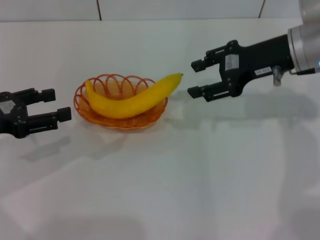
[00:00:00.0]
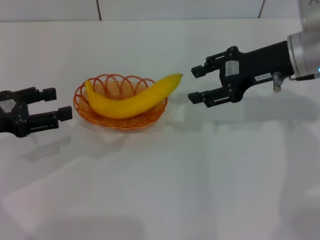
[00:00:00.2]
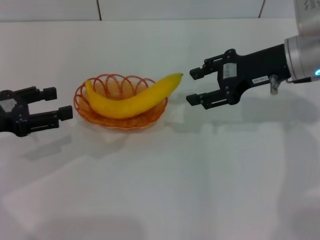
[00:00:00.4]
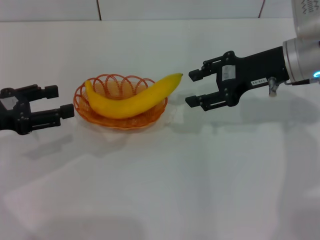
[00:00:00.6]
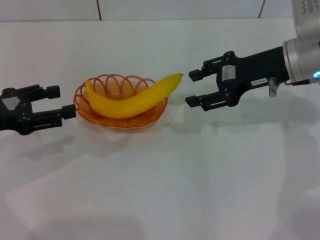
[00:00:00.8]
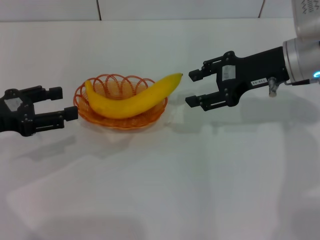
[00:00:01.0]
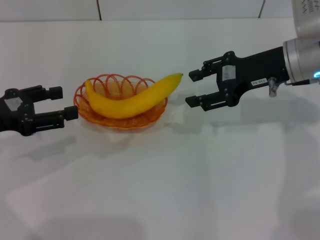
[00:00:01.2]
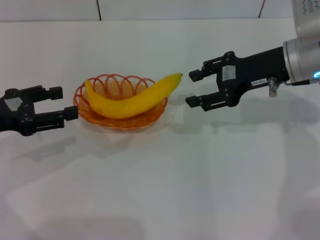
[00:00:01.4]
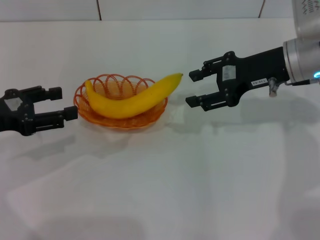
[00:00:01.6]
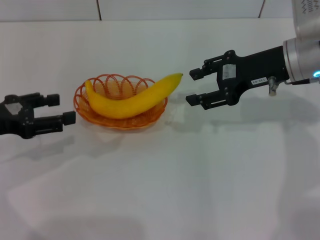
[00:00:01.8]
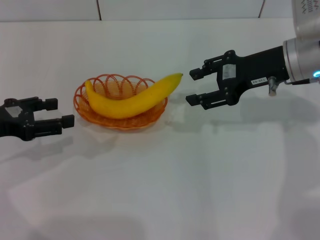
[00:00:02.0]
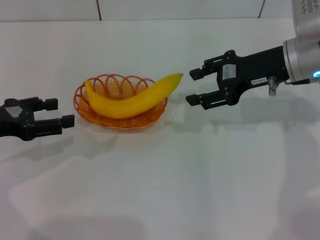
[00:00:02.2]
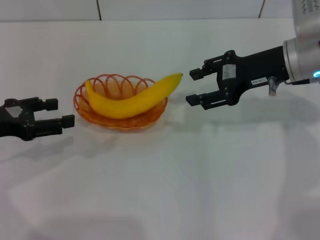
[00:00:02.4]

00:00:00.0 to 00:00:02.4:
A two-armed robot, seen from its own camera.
00:00:00.0 to 00:00:02.4: The grippers stay close to where they were, moving slightly.
